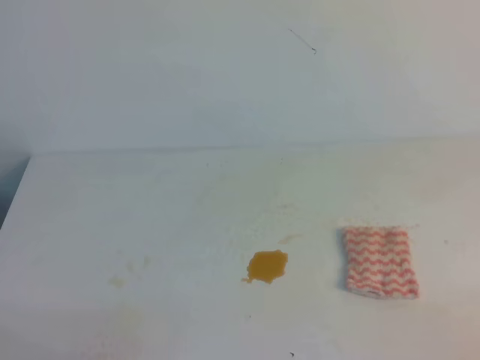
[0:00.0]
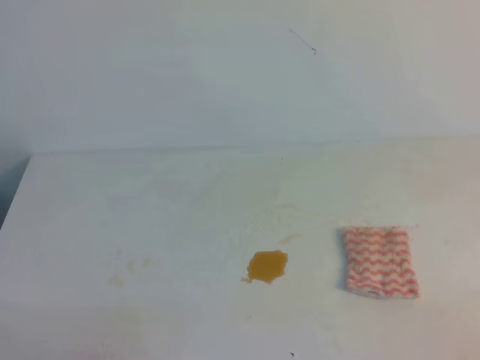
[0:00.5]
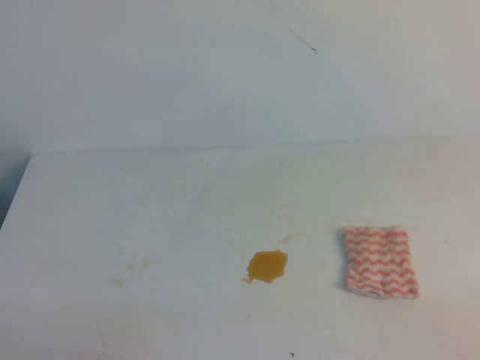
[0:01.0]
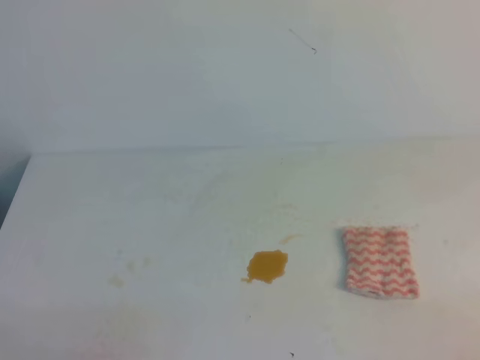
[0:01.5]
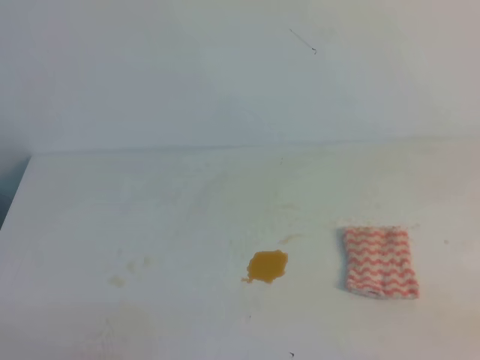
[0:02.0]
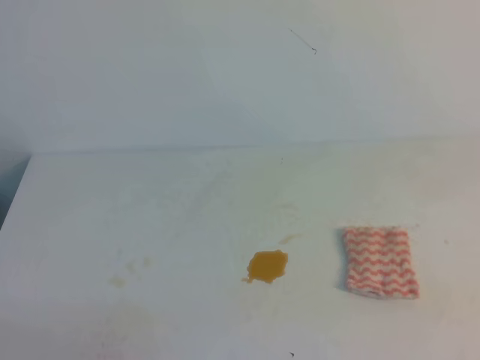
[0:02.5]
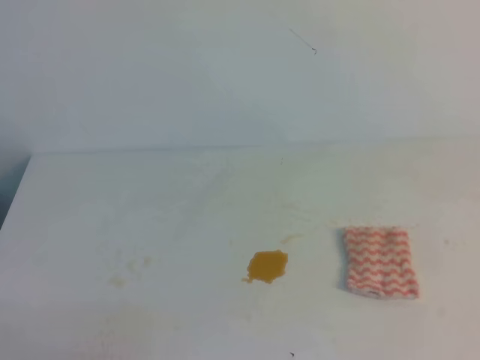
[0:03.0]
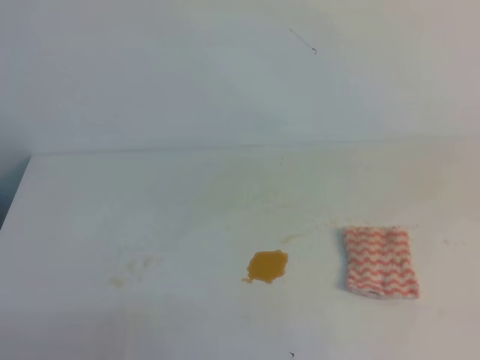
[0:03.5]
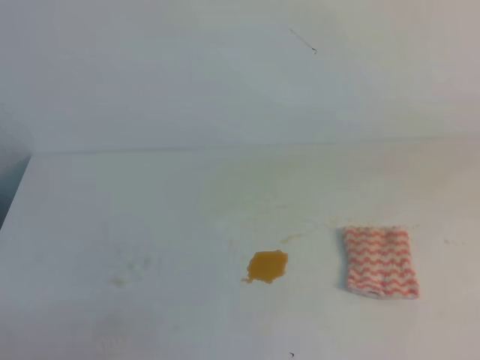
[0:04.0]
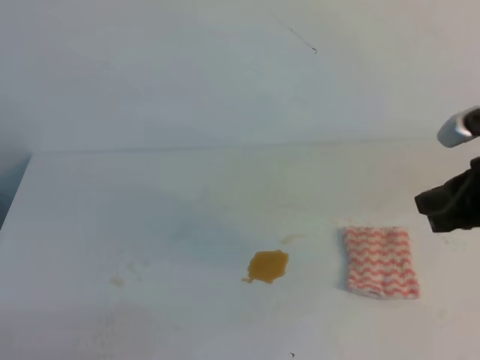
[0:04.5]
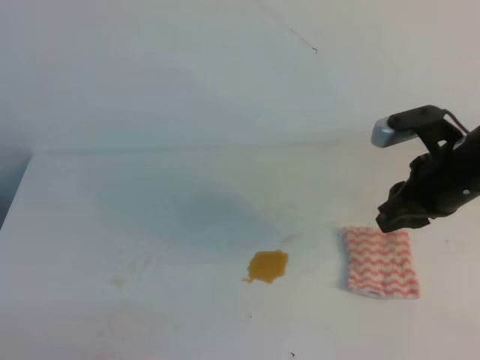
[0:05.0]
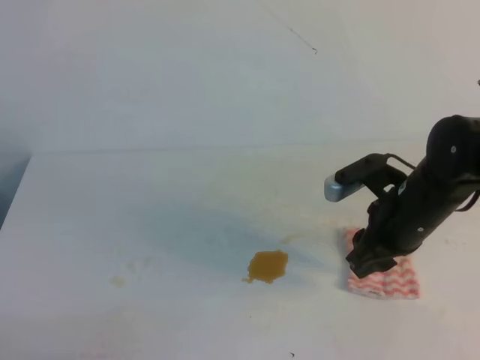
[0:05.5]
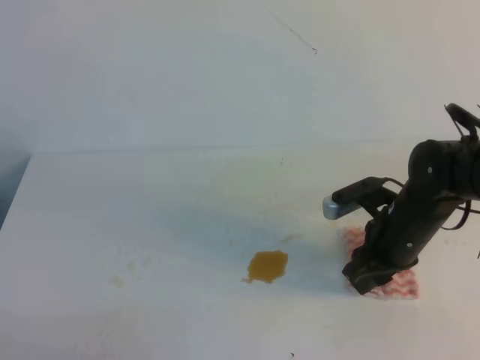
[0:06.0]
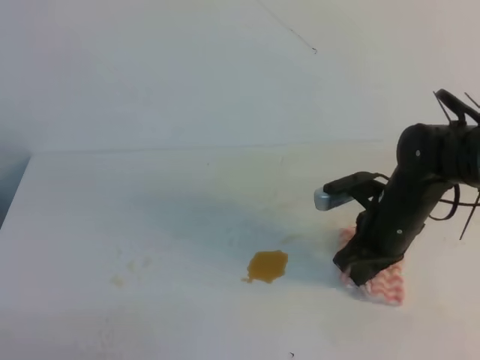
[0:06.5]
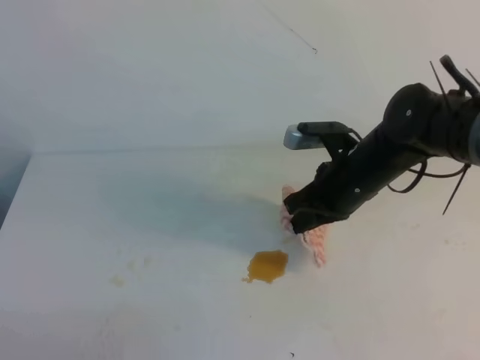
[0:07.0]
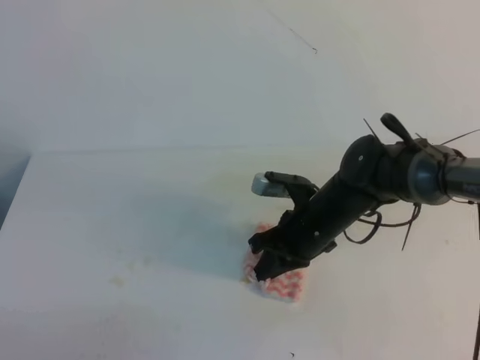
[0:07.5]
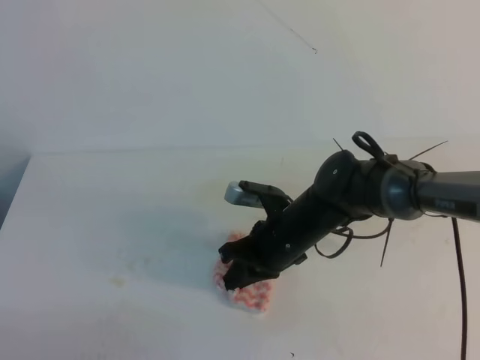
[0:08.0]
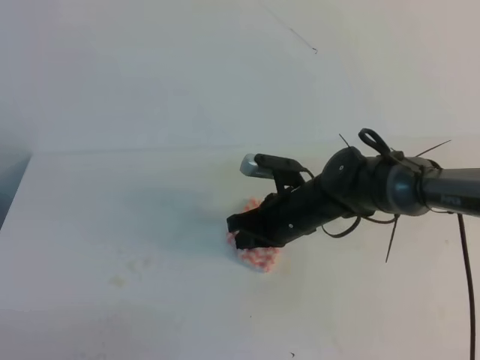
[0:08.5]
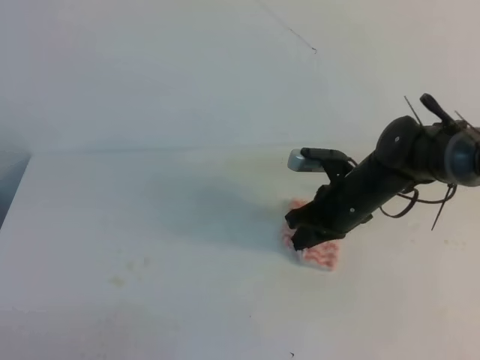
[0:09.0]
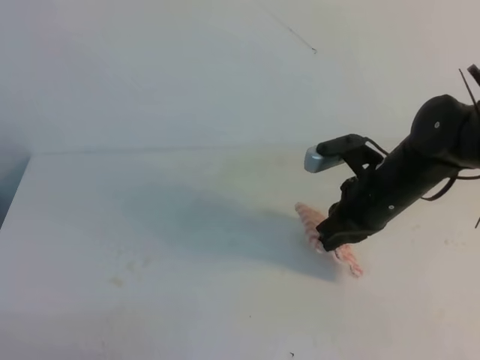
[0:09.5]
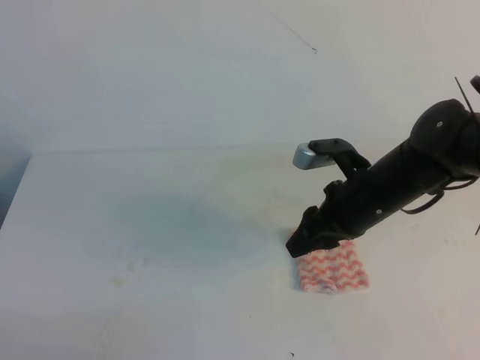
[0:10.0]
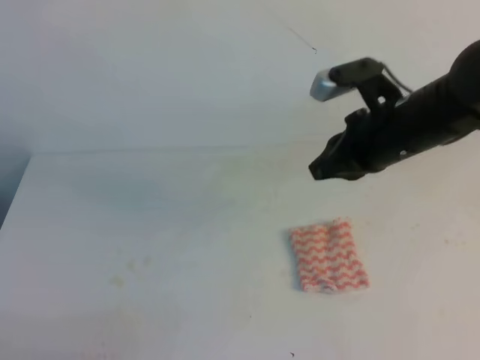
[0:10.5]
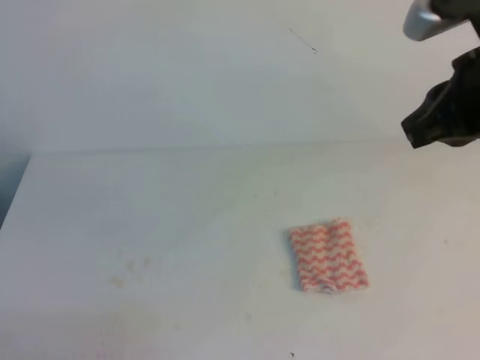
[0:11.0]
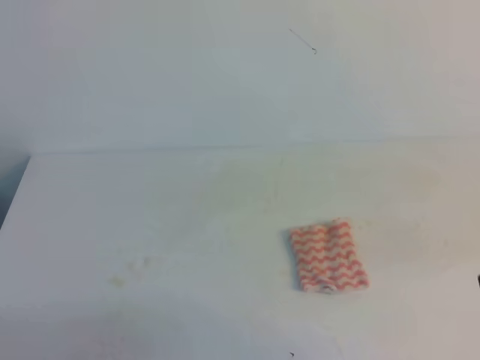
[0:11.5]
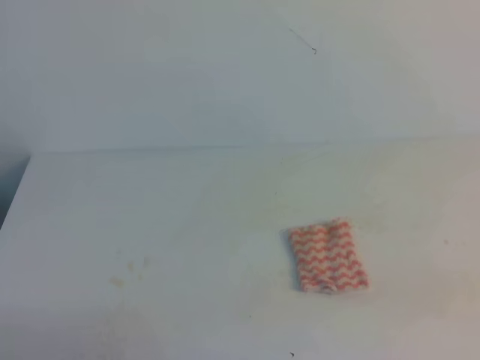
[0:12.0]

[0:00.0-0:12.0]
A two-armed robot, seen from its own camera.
0:04.0 to 0:06.0: The right gripper travels downward, forward and to the left by some 30 cm, and opens.
0:06.0 to 0:08.0: The right gripper heads to the left, covering roughly 15 cm, and closes.
0:08.0 to 0:10.0: The right gripper travels to the right and upward by roughly 10 cm, and opens.
0:10.0 to 0:12.0: The right gripper shifts some 30 cm backward, to the right and upward, and closes up.

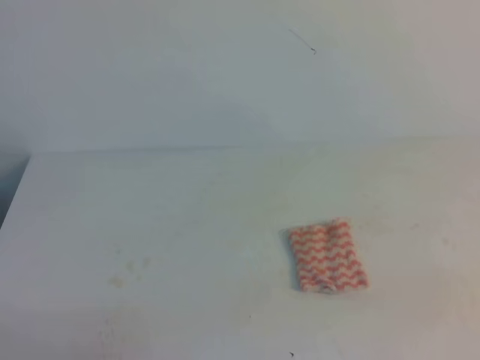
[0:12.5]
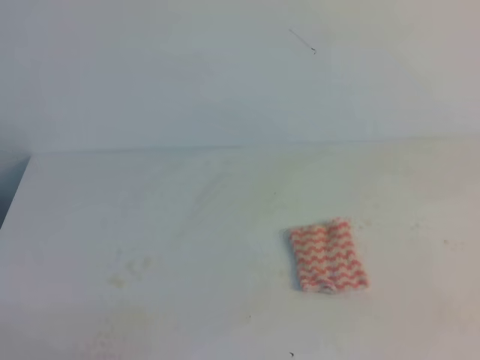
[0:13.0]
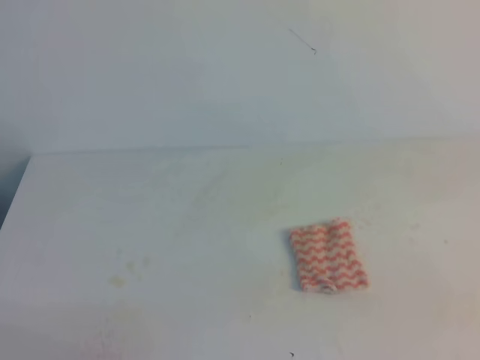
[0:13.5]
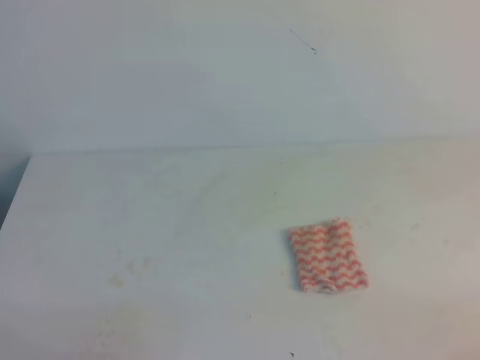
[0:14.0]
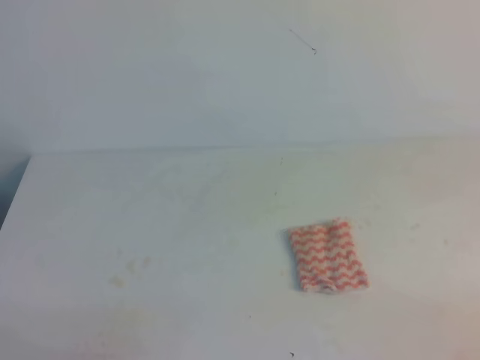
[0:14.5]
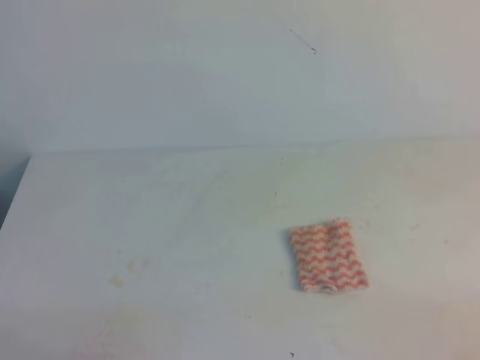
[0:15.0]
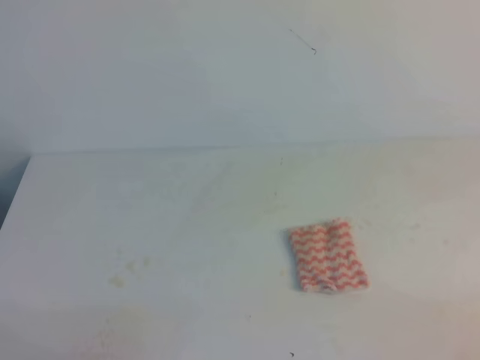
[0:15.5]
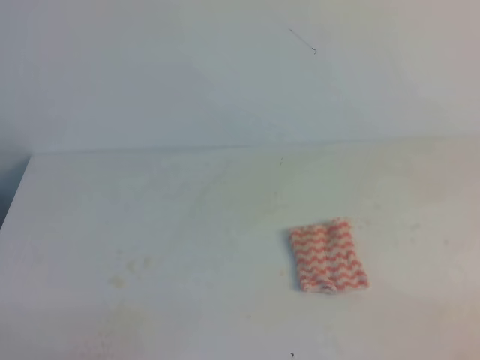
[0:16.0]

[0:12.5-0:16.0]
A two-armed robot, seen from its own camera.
0:14.5 to 0:16.0: The two grippers keep their place.

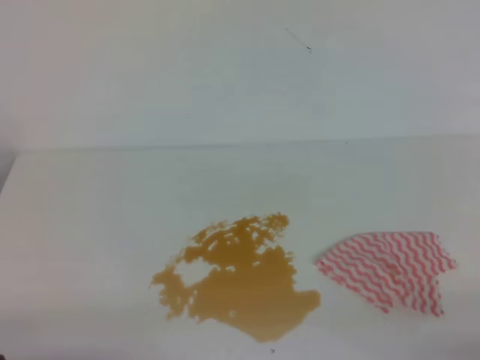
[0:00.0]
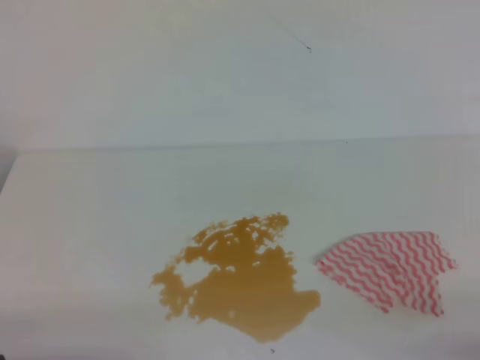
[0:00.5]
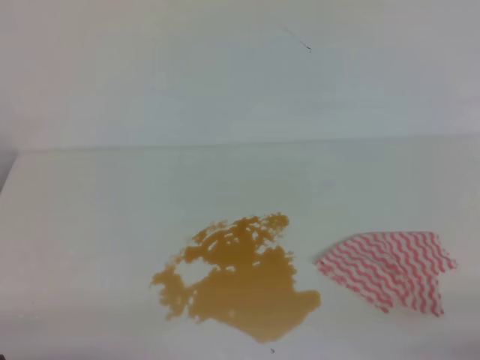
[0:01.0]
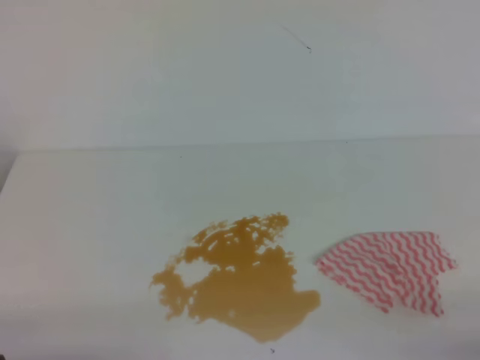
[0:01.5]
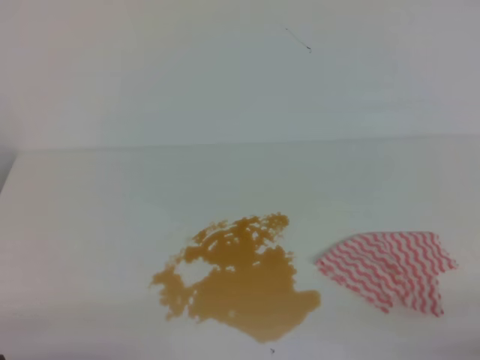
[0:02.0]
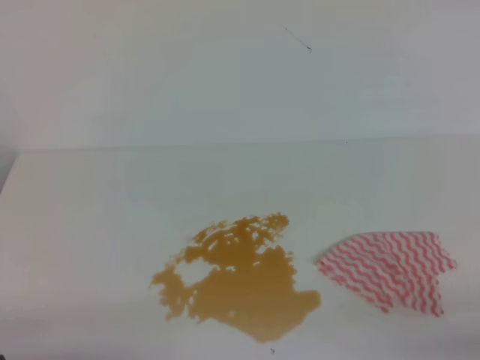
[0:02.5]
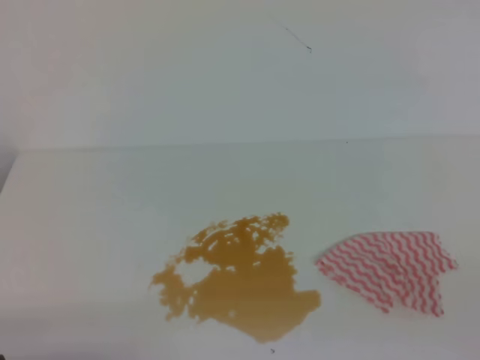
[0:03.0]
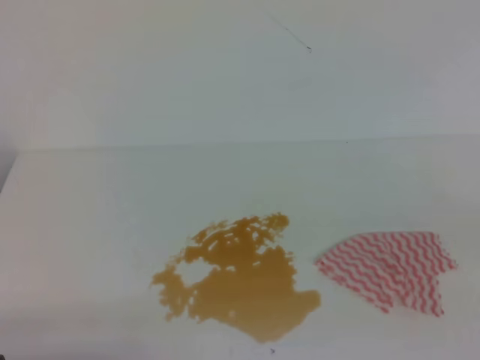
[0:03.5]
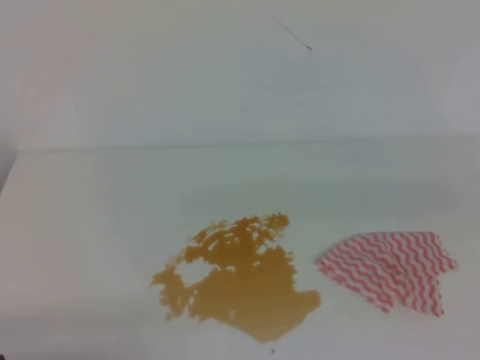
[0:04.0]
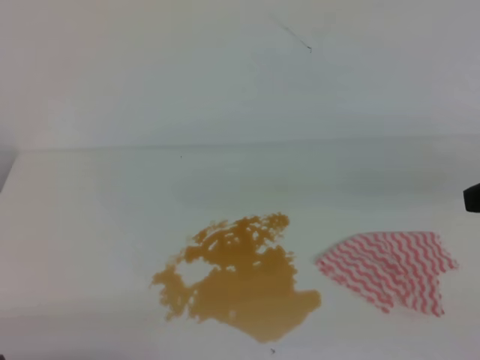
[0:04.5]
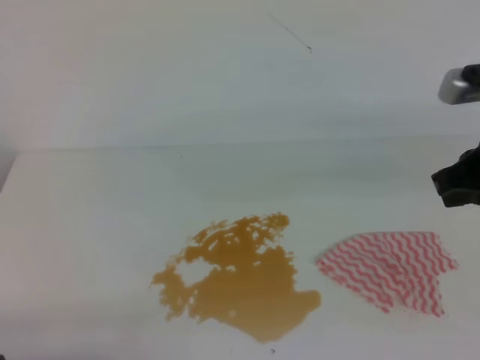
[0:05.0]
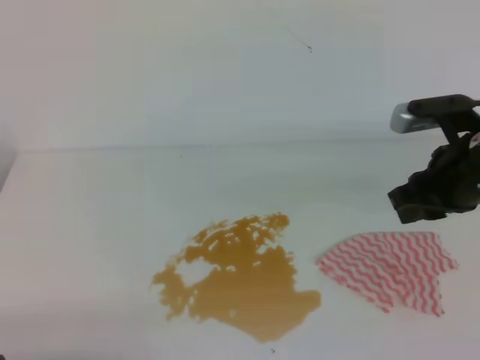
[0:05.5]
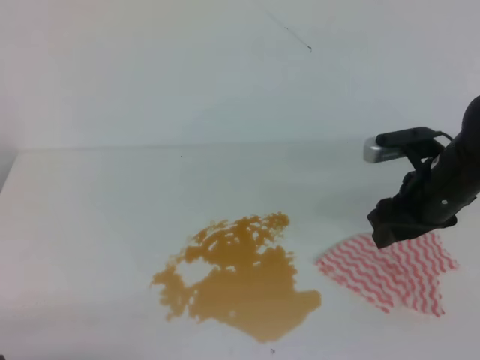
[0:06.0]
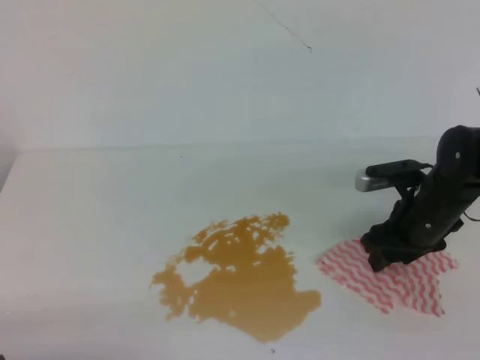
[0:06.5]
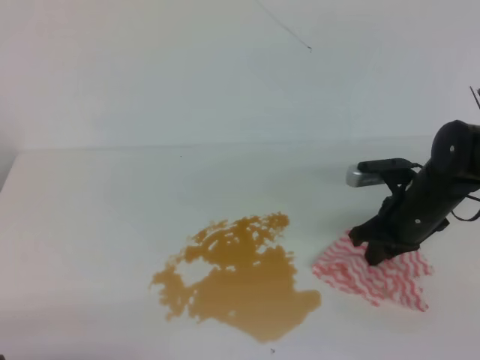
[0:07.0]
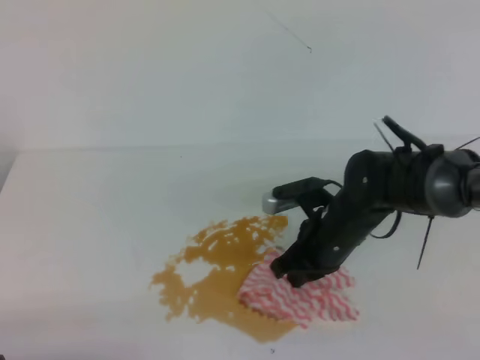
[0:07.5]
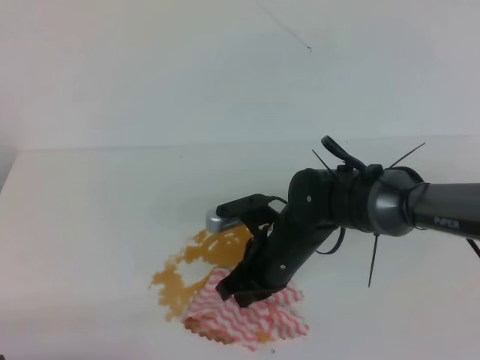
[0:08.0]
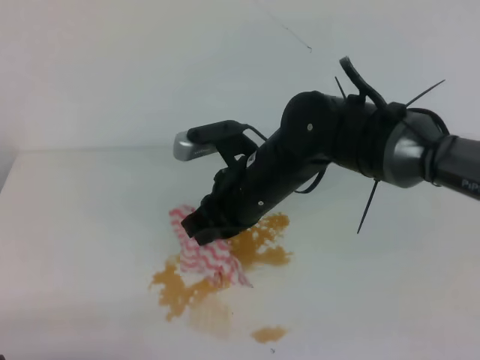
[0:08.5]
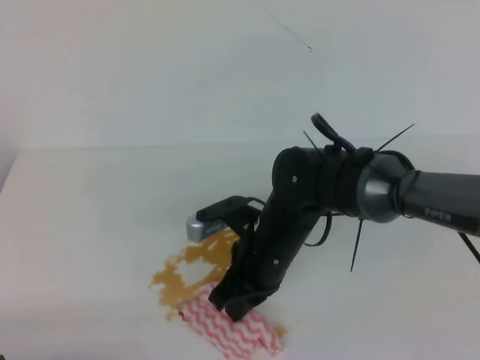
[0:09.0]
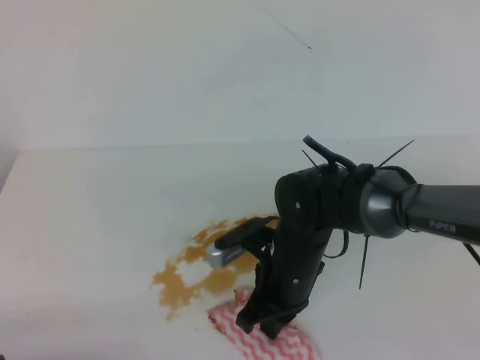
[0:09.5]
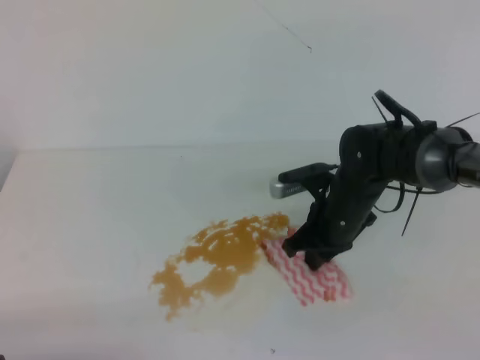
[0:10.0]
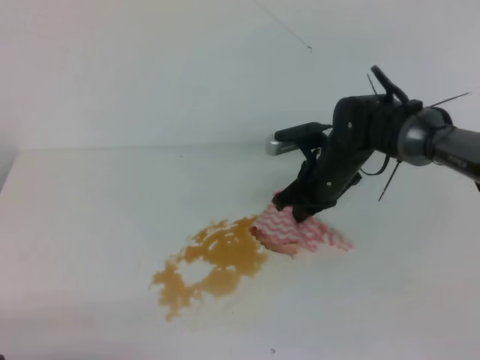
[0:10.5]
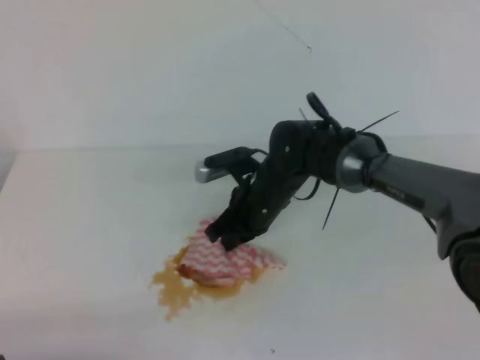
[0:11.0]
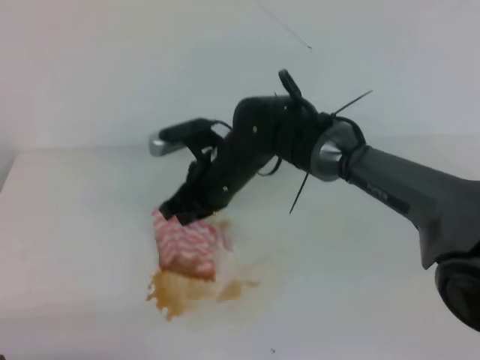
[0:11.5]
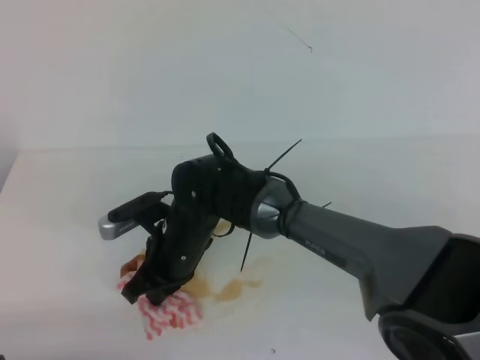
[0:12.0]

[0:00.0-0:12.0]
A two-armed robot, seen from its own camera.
0:00.0 to 0:02.0: Both grippers stay put.
0:04.0 to 0:06.0: The right gripper travels forward, downward and to the left by some 30 cm, and opens up.
0:06.0 to 0:08.0: The right gripper moves to the left and downward, about 20 cm, and closes up.
0:08.0 to 0:10.0: The right gripper travels to the right by approximately 5 cm.
0:10.0 to 0:12.0: The right gripper goes about 20 cm to the left.
